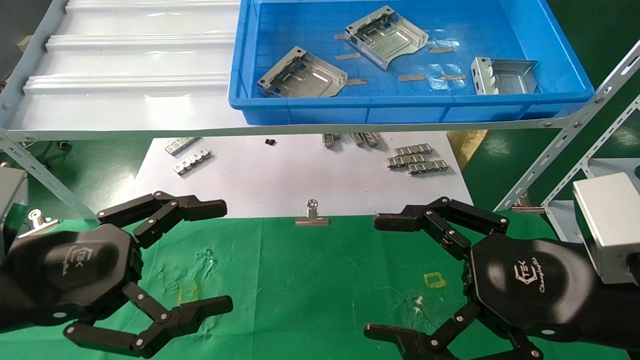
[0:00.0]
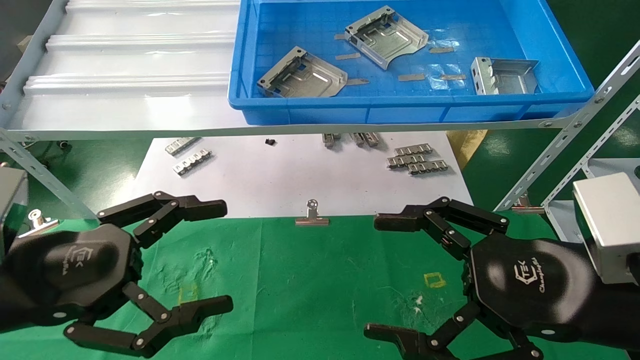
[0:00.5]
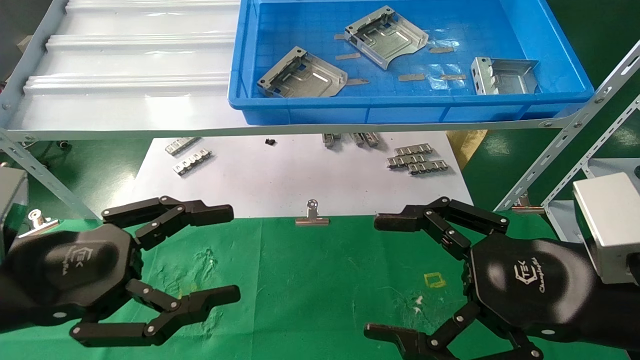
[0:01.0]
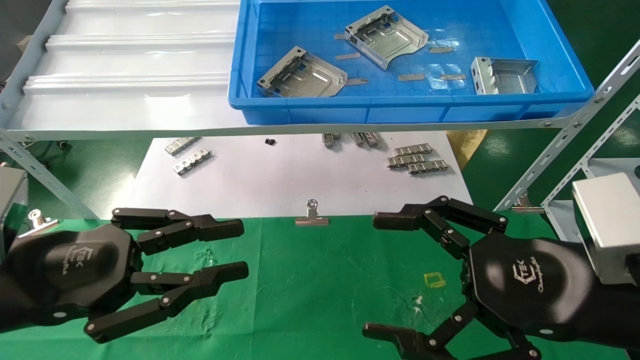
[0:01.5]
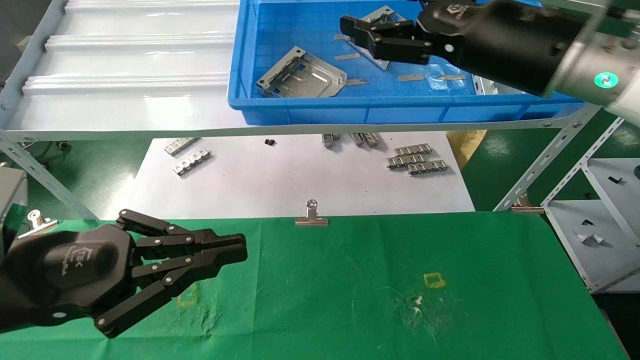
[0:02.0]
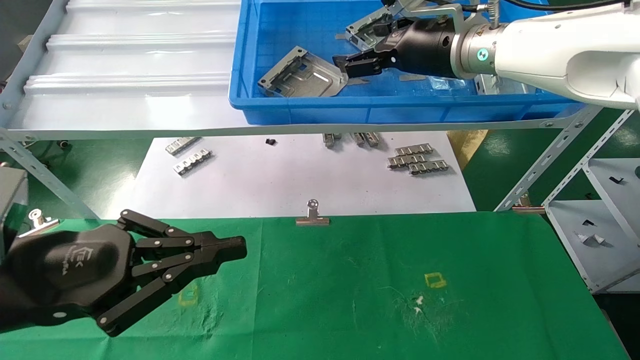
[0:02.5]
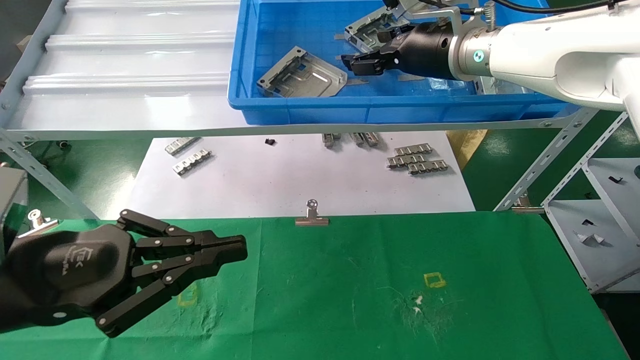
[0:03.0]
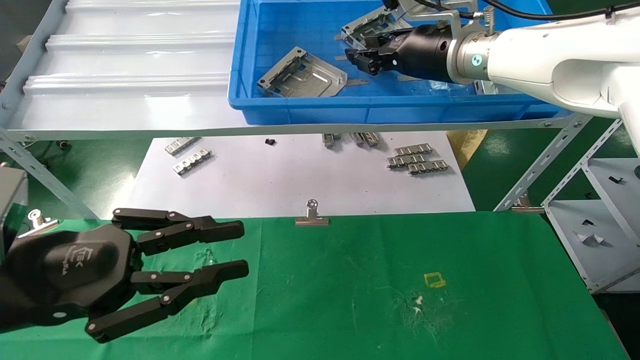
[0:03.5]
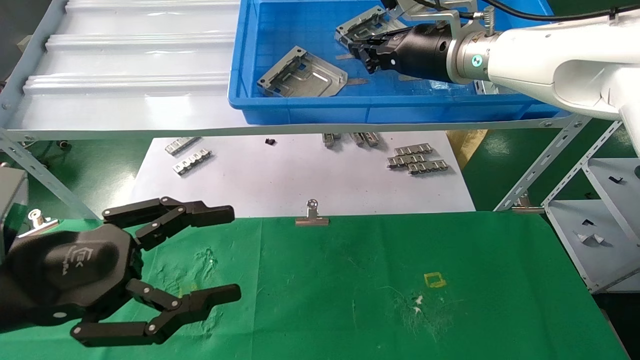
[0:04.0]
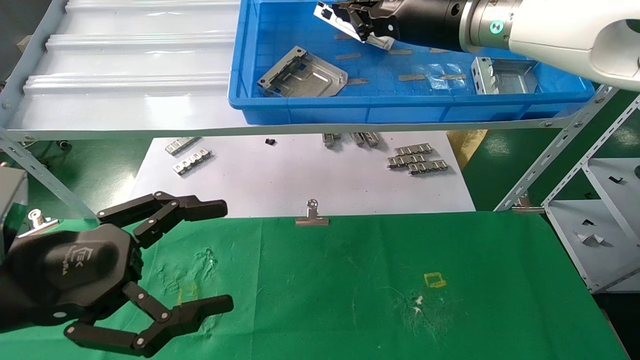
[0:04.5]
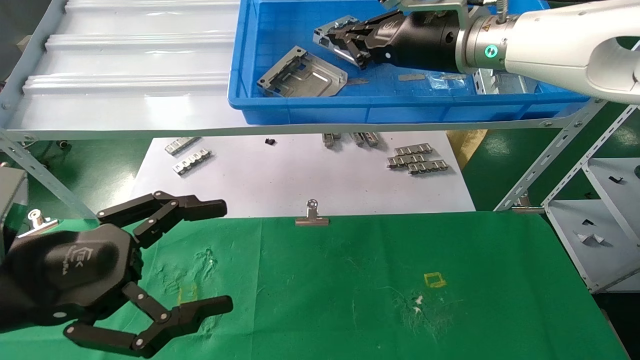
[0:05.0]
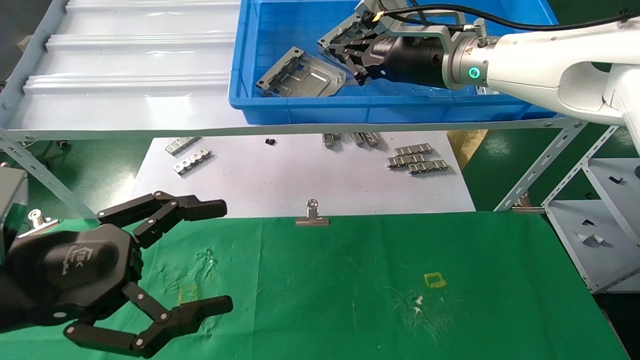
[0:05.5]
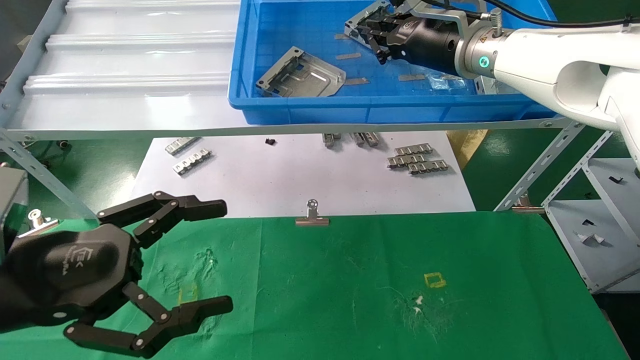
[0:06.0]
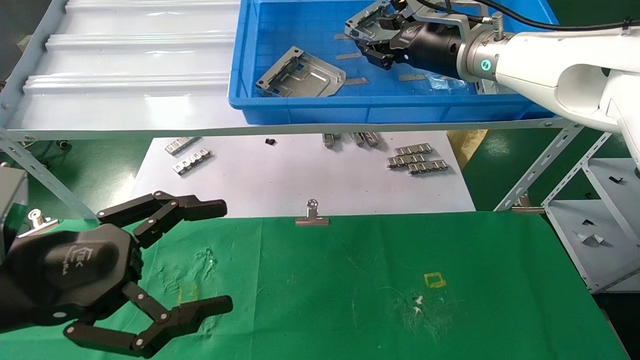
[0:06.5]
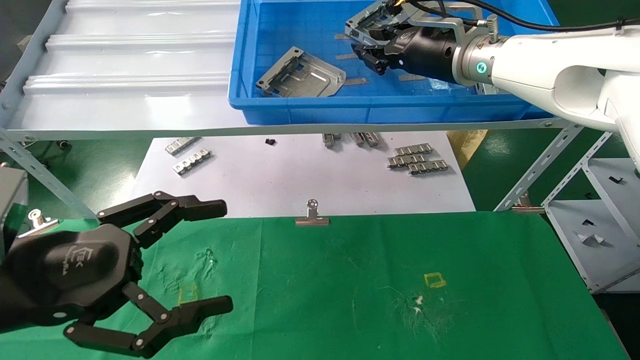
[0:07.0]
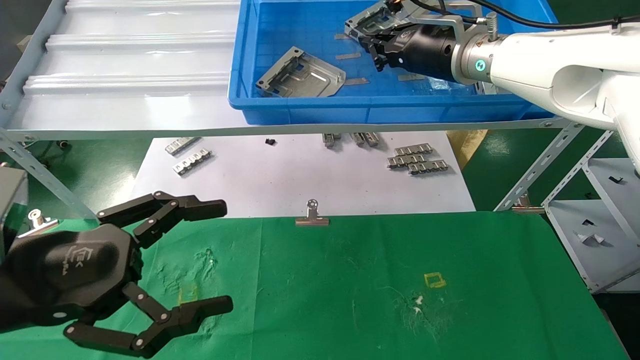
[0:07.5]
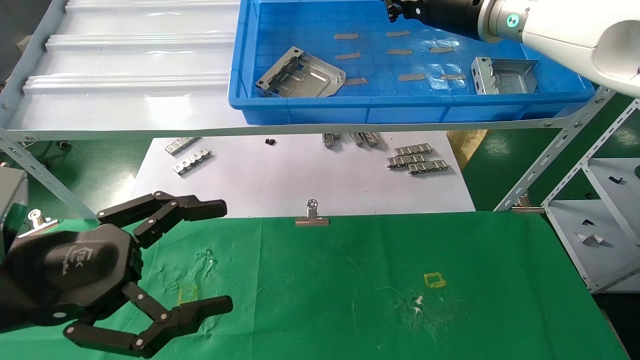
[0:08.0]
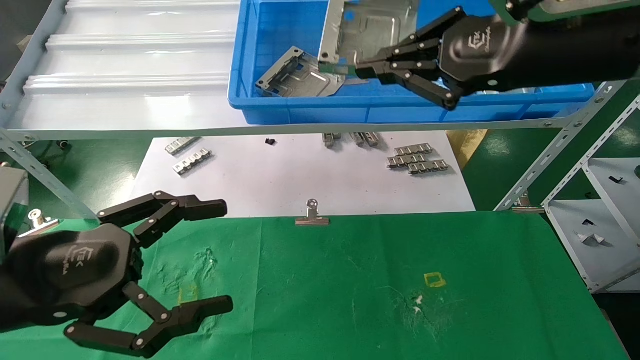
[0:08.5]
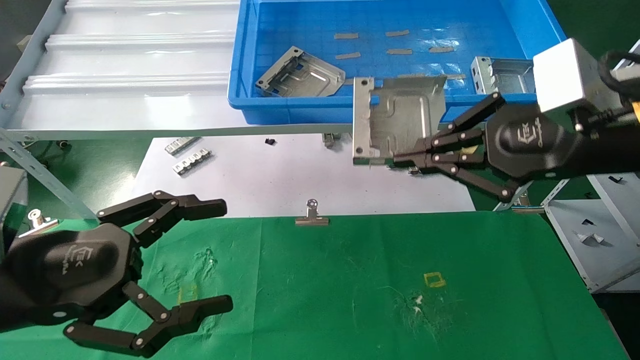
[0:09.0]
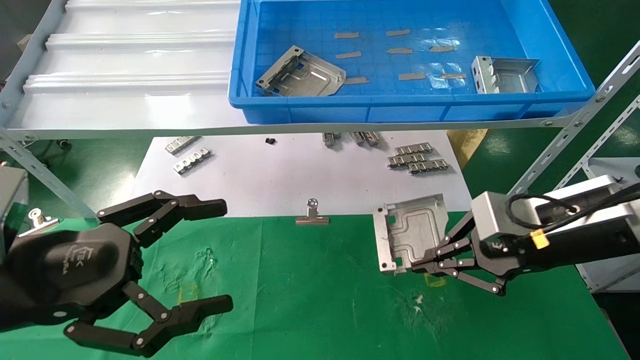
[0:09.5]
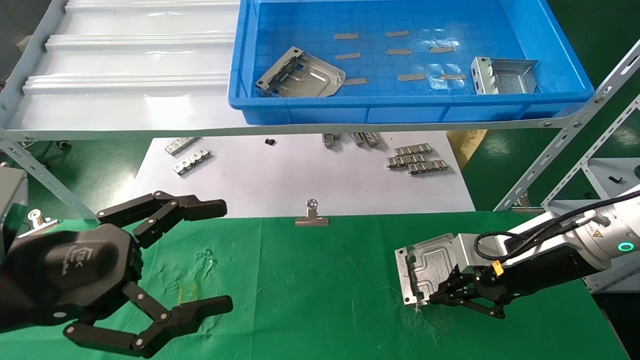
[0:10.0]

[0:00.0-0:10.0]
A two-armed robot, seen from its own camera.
Task of the whole recording: use the mechanical arm to pick up the parts and place them on the table.
Step, 0:02.0 to 0:07.5: Pick up the hard drive bracket from the feeding area.
0:00.0 to 0:02.0: The left gripper closes up, while the right gripper shifts approximately 20 cm forward and upward.
0:02.0 to 0:04.0: The right gripper is displaced forward by roughly 10 cm, and closes up. Meanwhile the left gripper opens its fingers.
0:04.0 to 0:06.0: The left gripper opens its fingers.
0:06.0 to 0:08.0: The right gripper moves roughly 5 cm.
0:08.0 to 0:10.0: The right gripper heads downward and to the right, covering about 25 cm.

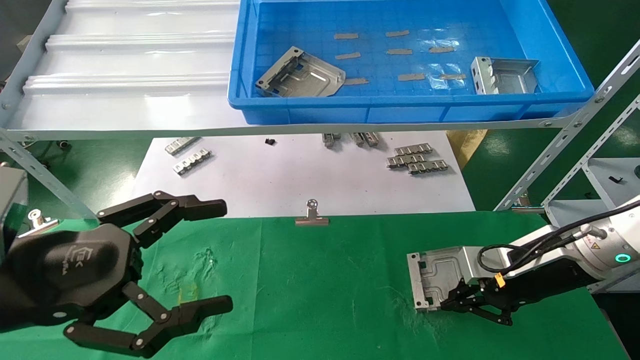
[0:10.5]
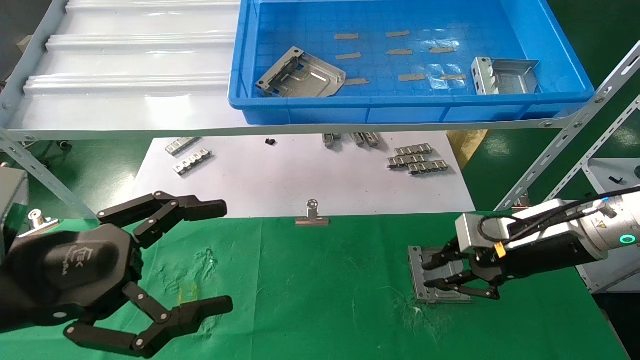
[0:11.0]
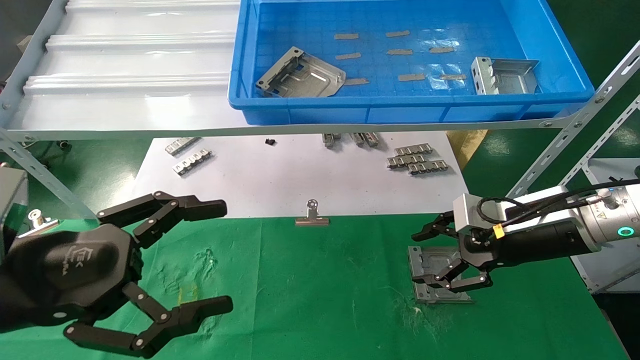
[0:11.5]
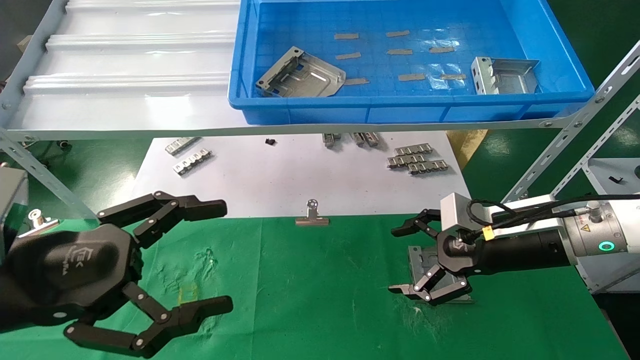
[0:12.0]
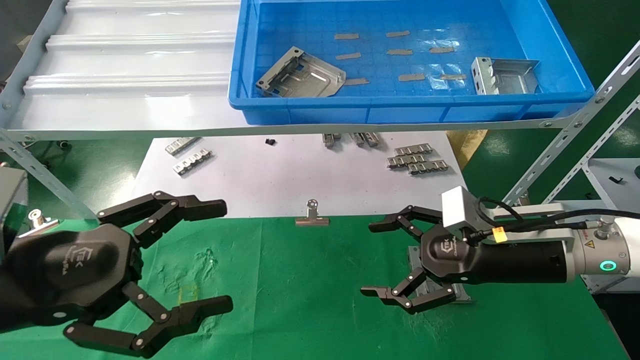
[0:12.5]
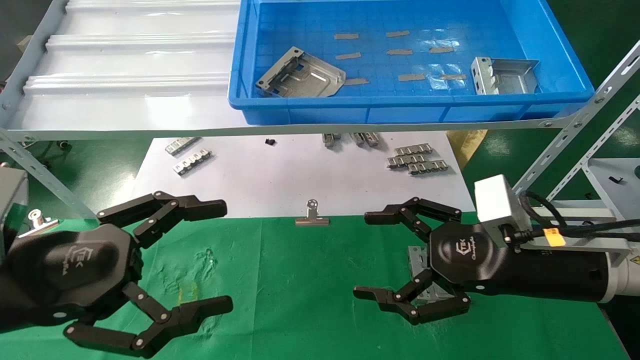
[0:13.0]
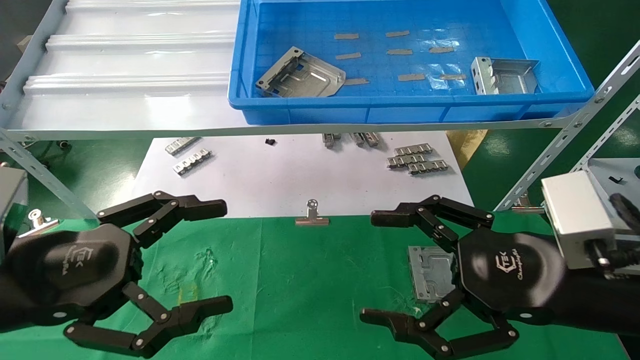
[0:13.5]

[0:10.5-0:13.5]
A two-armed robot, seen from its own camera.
Task of the whole recording: use the mechanical arm to pick up the parts and place them on the table.
0:10.5 to 0:12.0: The right gripper opens its fingers.
0:12.0 to 0:13.5: The right gripper goes approximately 15 cm backward.
